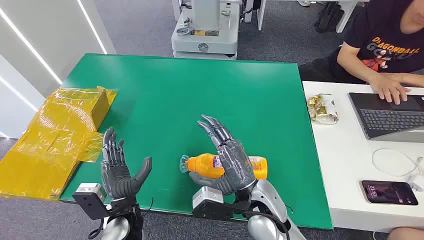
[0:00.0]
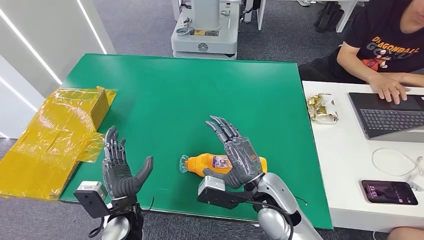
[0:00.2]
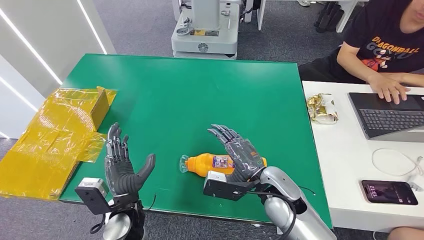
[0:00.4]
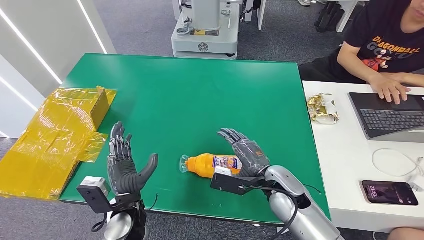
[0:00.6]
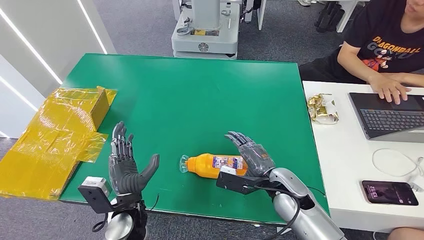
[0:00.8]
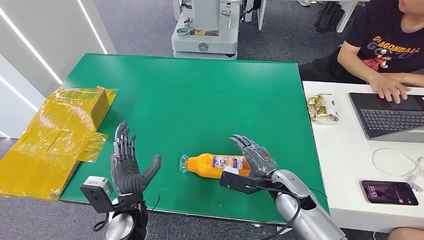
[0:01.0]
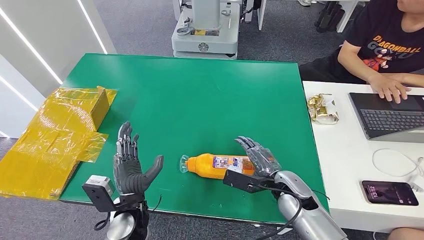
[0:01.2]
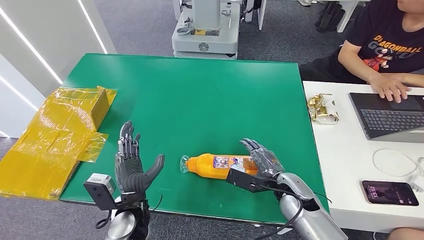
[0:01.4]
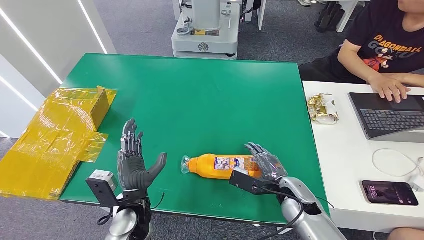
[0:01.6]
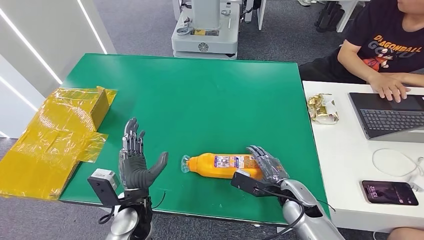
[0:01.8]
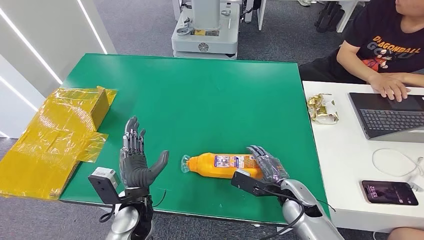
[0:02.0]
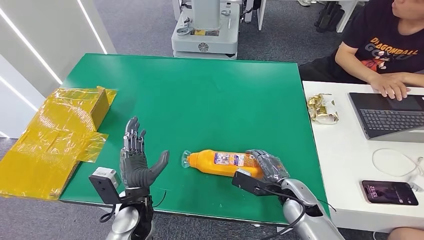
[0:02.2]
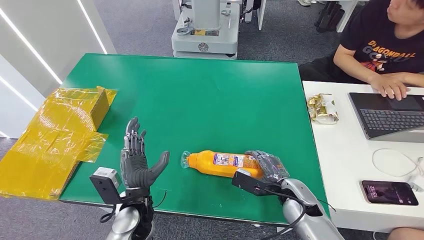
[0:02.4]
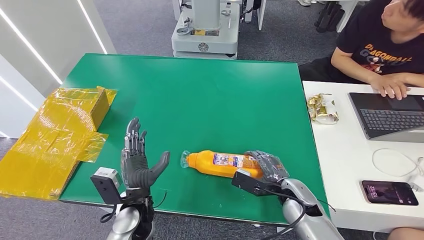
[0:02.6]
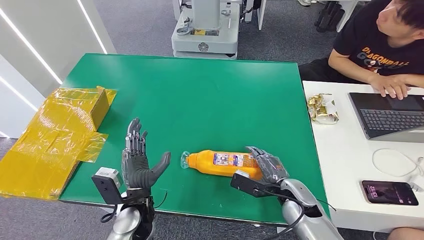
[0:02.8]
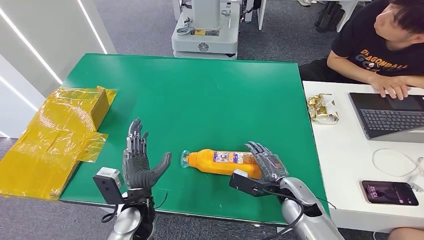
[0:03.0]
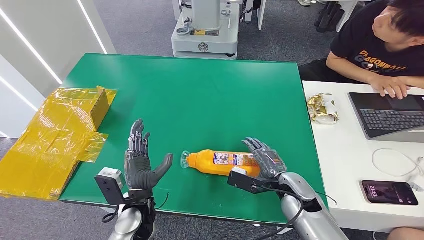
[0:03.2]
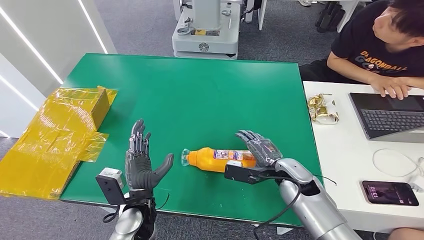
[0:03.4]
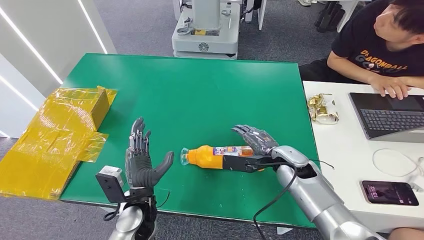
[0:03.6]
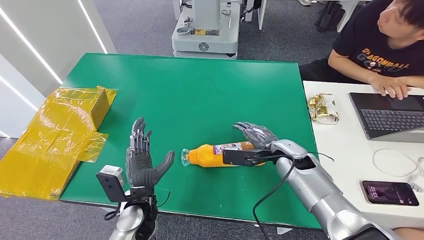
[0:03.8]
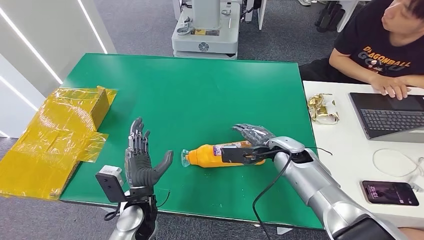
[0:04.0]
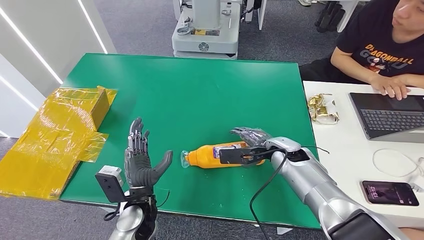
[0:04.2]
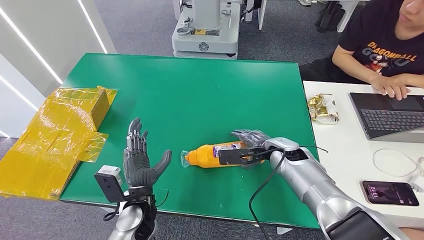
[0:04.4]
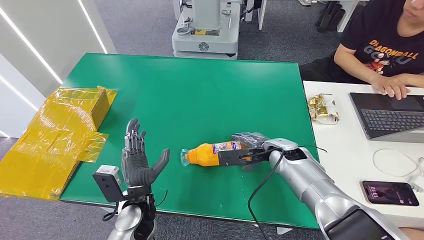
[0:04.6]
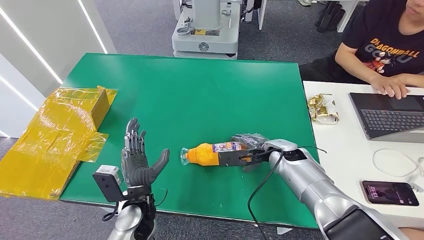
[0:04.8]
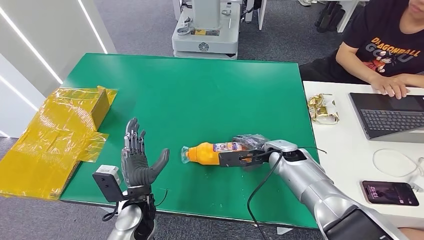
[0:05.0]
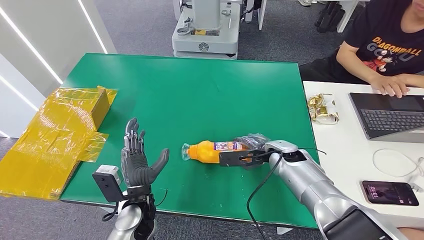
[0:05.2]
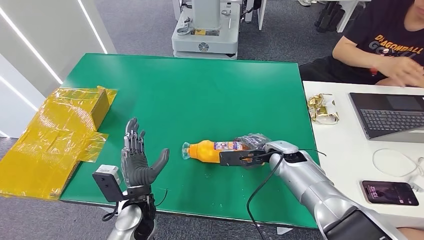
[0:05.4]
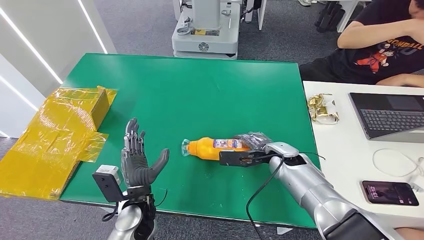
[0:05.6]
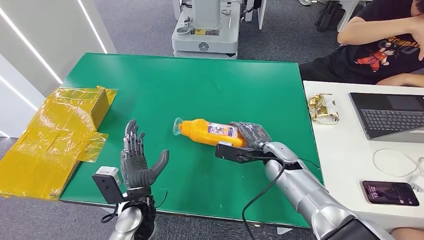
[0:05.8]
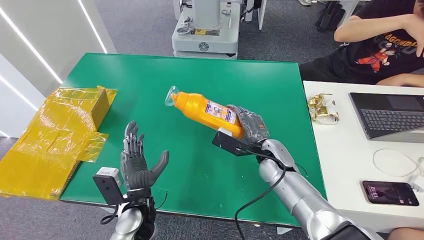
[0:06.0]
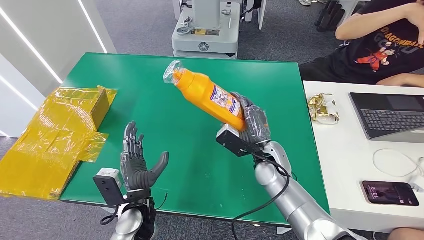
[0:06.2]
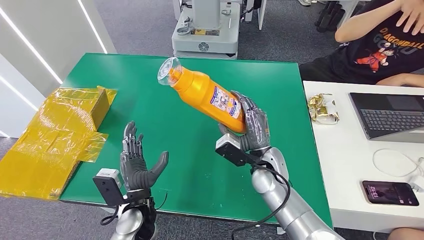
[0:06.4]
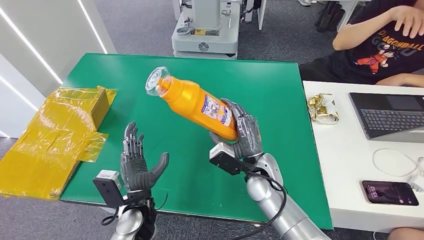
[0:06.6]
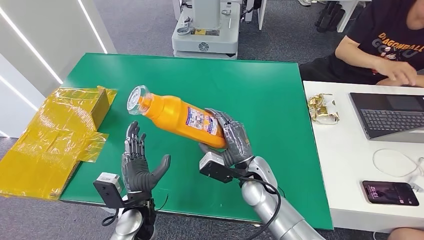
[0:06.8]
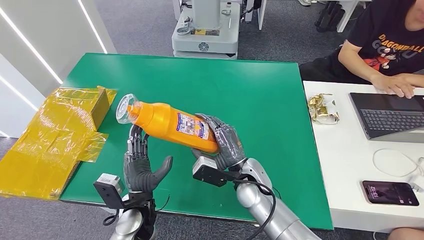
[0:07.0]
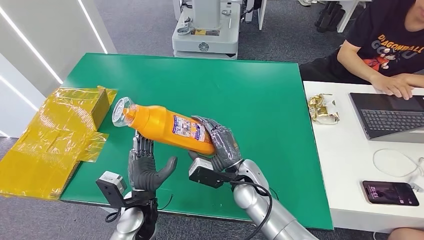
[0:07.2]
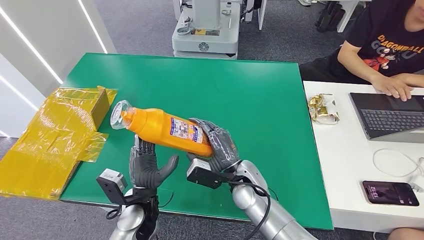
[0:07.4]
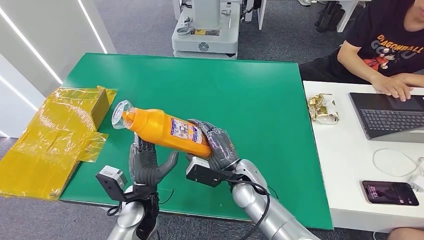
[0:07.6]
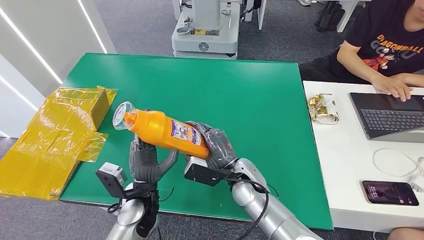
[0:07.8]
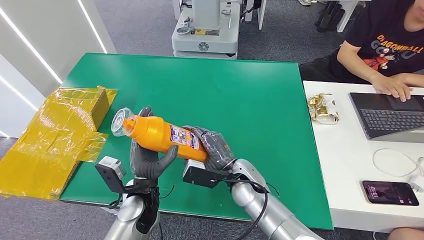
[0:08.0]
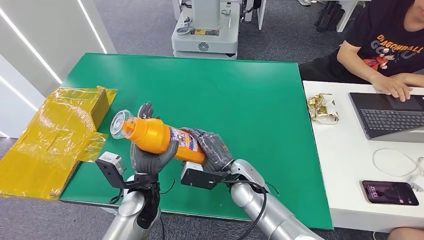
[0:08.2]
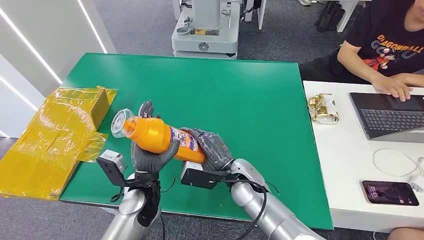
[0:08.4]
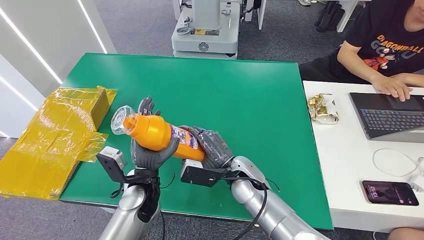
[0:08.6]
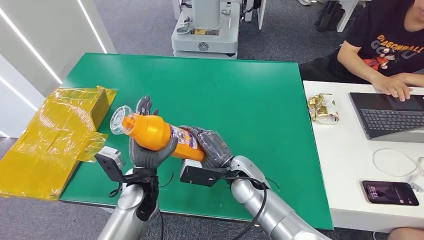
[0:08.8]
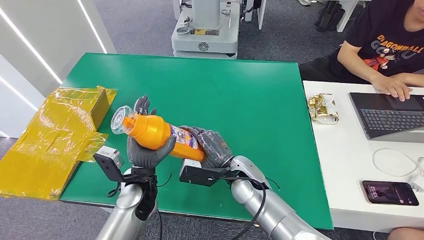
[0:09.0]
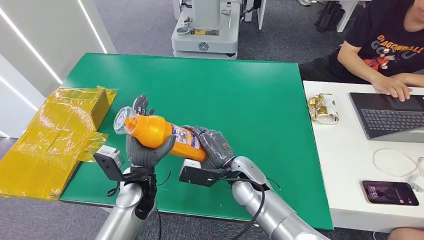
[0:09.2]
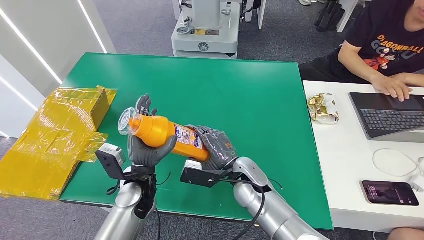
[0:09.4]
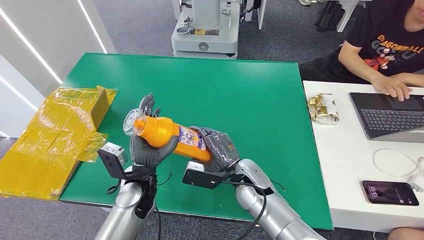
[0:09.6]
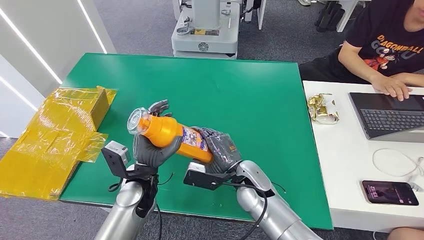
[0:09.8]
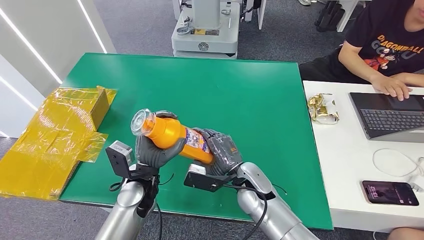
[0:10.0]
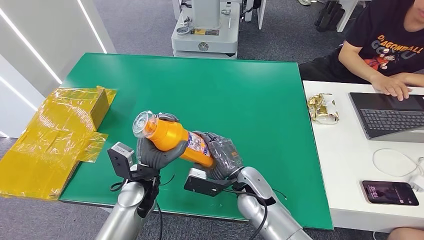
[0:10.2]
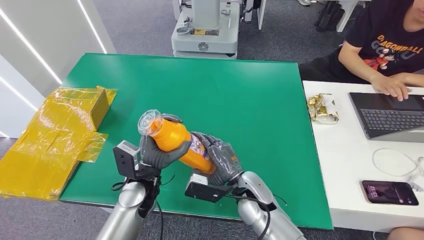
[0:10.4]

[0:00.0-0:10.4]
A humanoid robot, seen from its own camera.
Step, 0:00.0 to 0:06.2: Pick up the bottle from the table.
0:01.4 to 0:03.0: The hands move only a little.
0:03.0 to 0:04.4: The right hand heads forward and upward, covering approximately 10 cm.
0:07.4 to 0:09.0: The left hand ends up roughly 5 cm from where it was.
0:09.0 to 0:10.4: The hands move only a little.

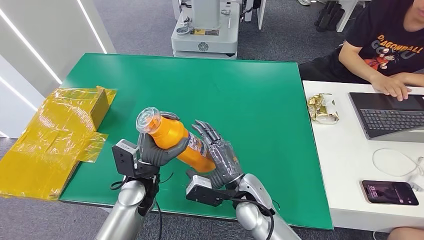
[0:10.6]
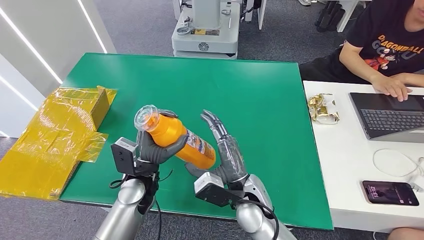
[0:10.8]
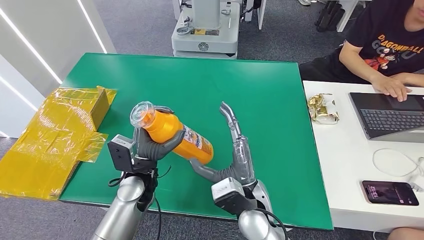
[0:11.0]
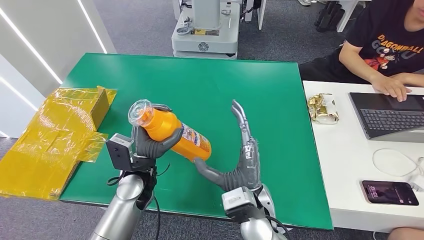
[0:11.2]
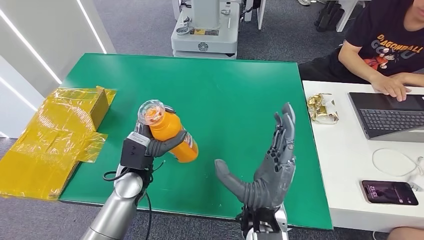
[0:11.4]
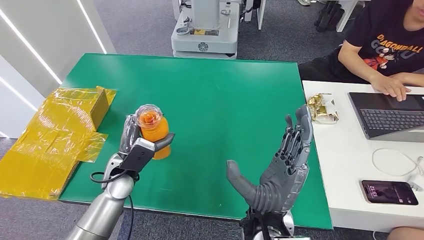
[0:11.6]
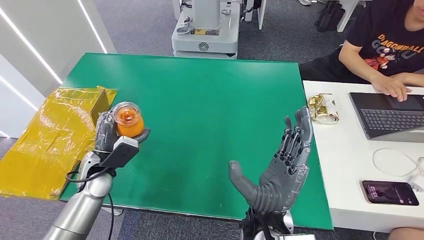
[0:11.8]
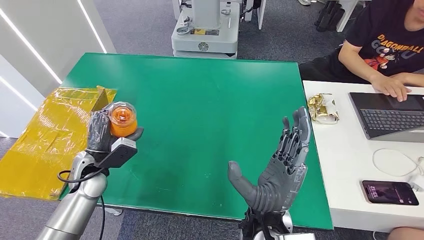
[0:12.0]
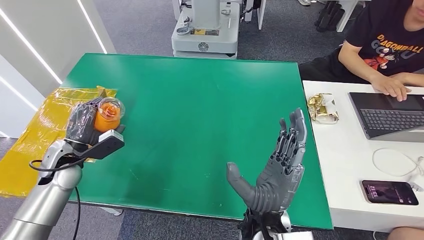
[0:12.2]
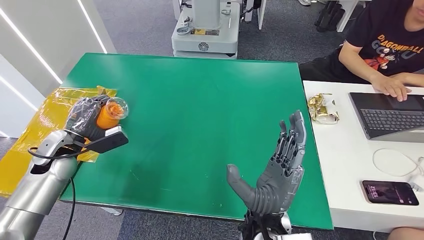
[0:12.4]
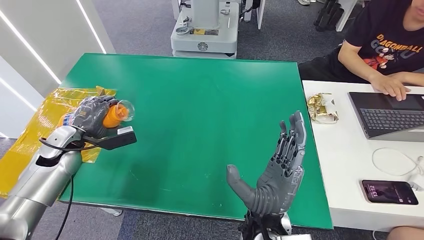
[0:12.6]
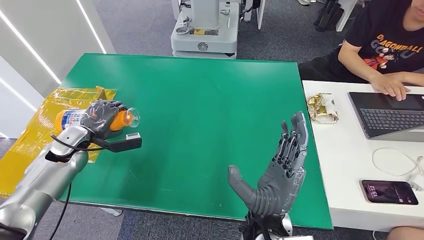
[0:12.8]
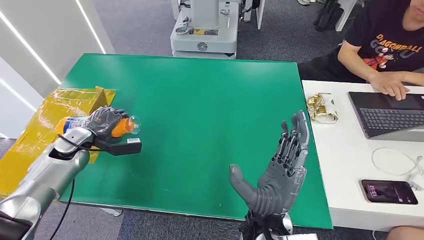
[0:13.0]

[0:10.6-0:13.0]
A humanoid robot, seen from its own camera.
Step, 0:10.6 to 0:12.8: Turn the bottle to the front side.
0:10.6 to 0:11.8: The left hand goes some 15 cm to the left. Meanwhile the right hand shifts roughly 10 cm upward and backward.
0:11.8 to 0:13.0: The left hand heads to the left and forward, covering roughly 15 cm.

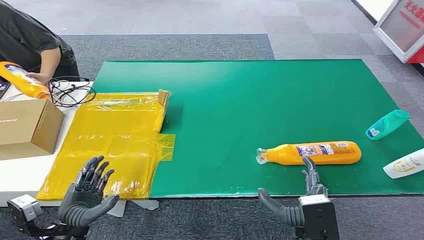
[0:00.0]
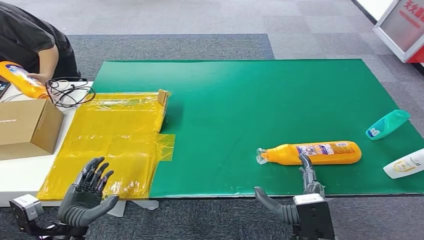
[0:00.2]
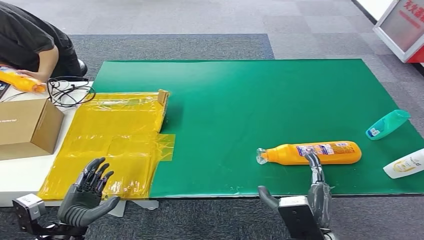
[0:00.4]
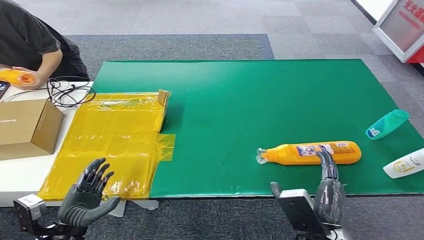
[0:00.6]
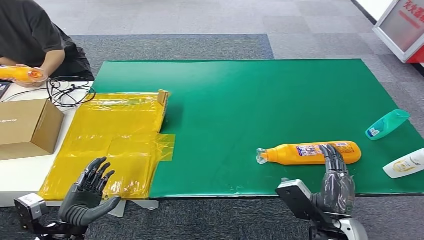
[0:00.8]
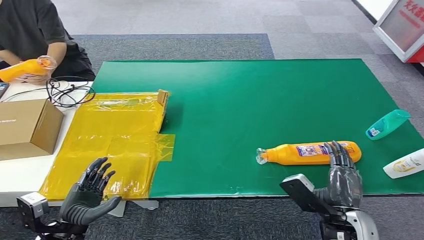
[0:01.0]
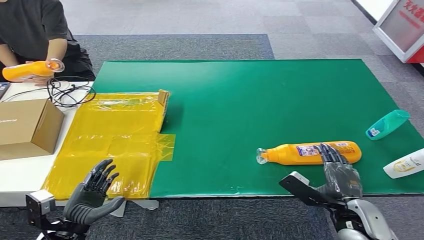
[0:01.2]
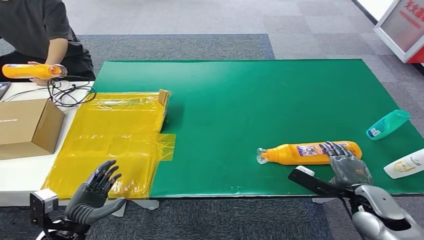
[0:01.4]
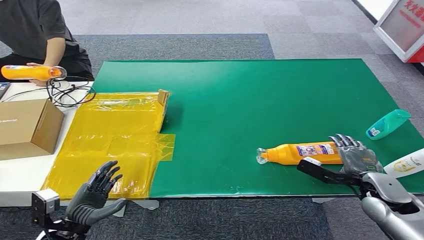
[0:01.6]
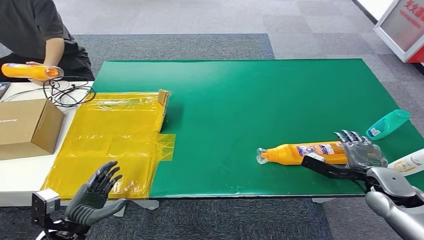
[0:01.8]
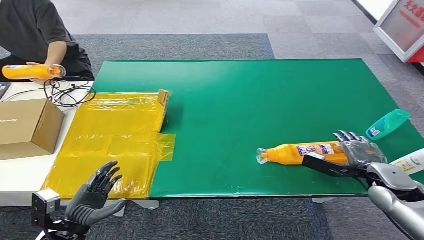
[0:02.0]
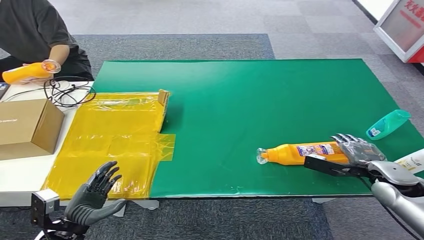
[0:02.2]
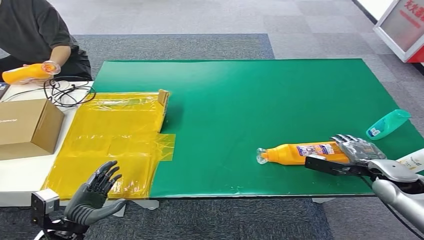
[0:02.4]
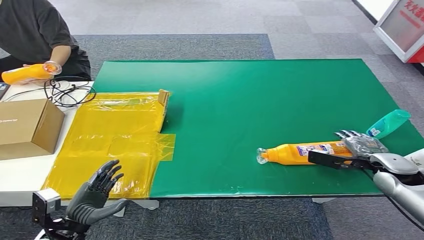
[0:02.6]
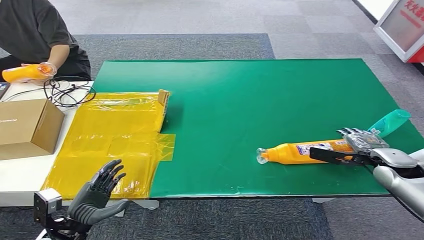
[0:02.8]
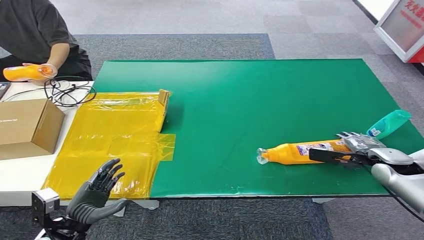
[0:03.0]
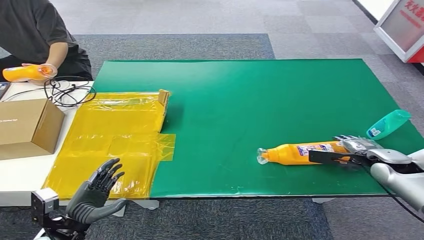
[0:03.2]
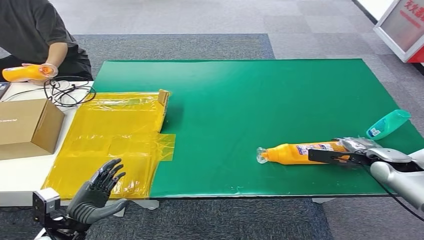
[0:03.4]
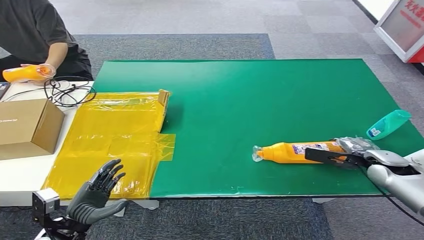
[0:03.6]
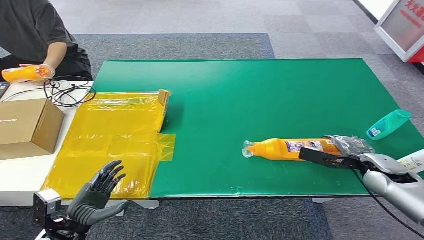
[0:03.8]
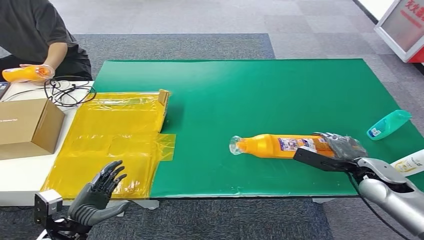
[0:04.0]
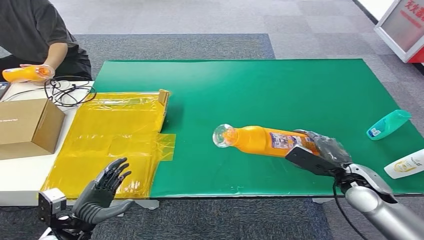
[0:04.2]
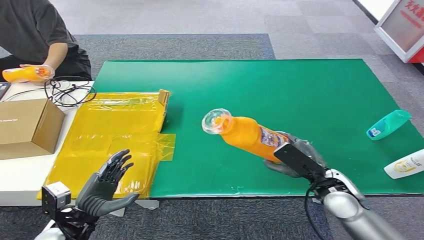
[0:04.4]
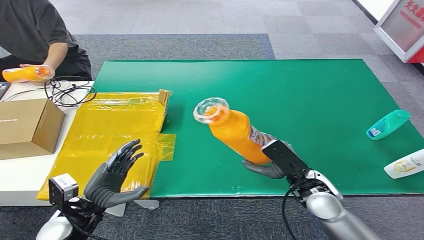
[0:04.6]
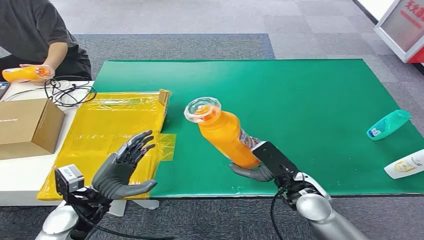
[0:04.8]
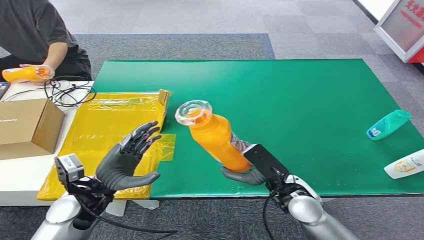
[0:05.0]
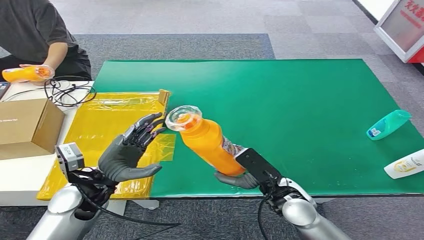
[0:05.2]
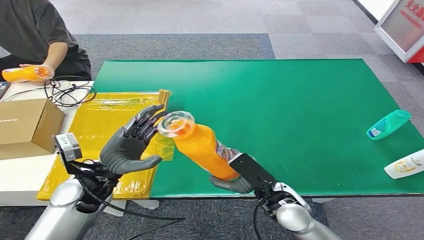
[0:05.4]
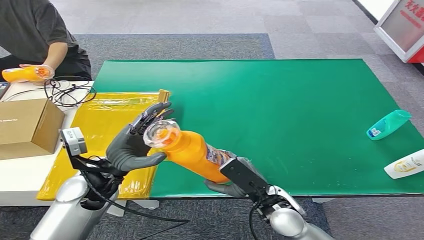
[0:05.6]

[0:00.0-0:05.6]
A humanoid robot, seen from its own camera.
Step, 0:00.0 to 0:04.6: Pick up the bottle from the table.
0:01.4 to 0:02.8: The right hand travels forward and to the right by about 10 cm.
0:02.8 to 0:04.2: The right hand moves to the left and backward, approximately 10 cm.
0:04.2 to 0:05.6: The right hand shifts some 20 cm to the left; the left hand moves forward, upward and to the right, about 20 cm.
